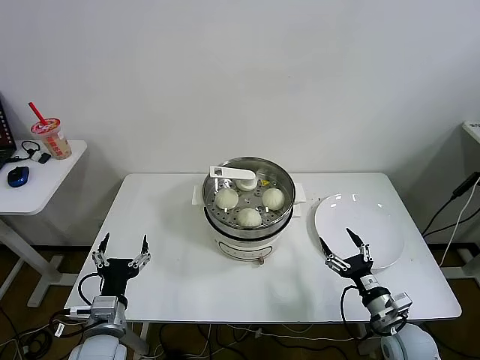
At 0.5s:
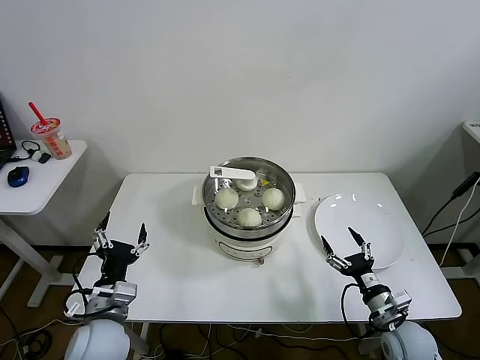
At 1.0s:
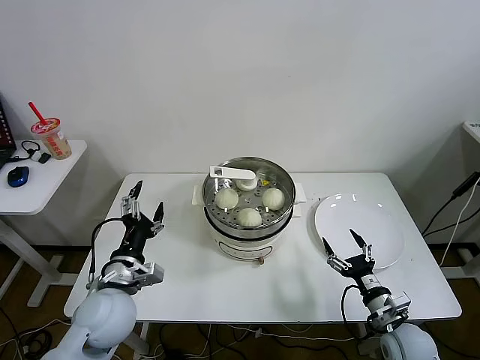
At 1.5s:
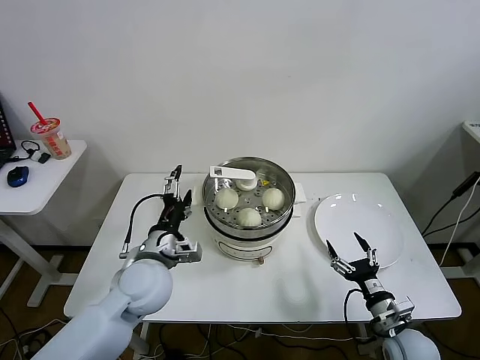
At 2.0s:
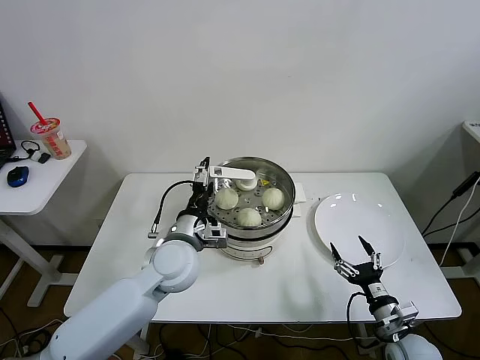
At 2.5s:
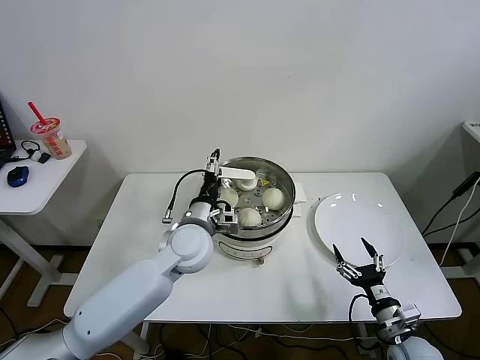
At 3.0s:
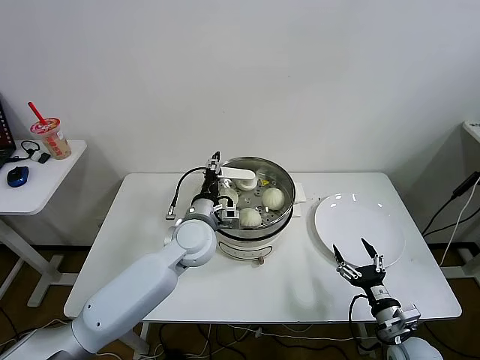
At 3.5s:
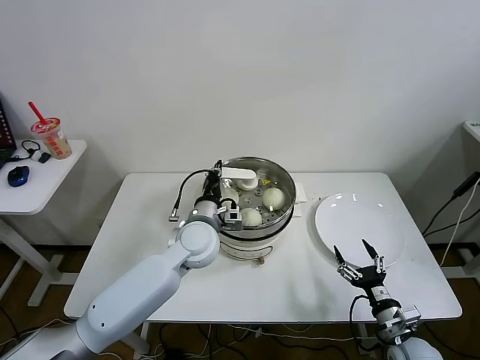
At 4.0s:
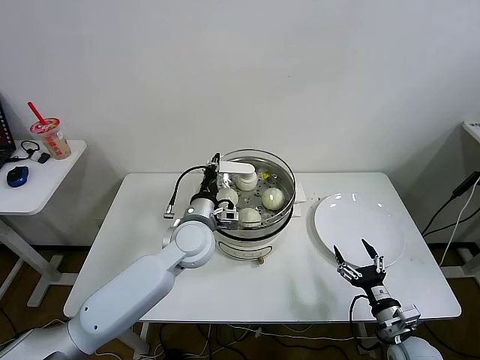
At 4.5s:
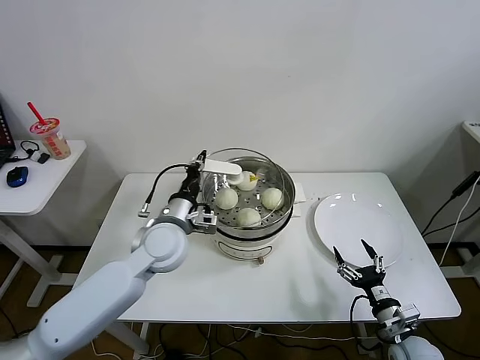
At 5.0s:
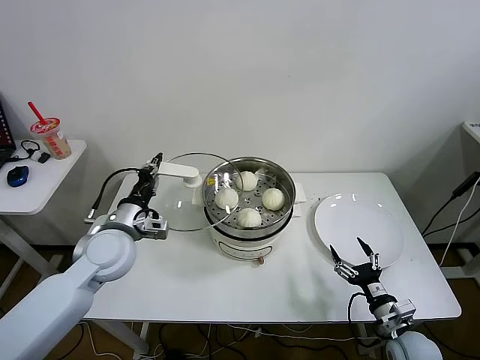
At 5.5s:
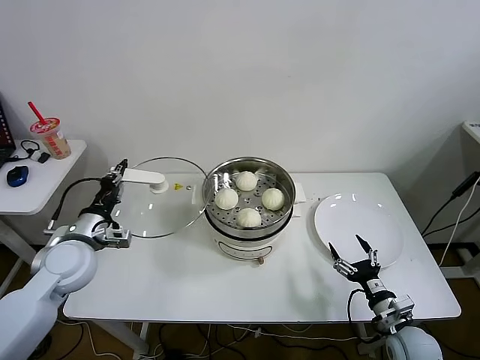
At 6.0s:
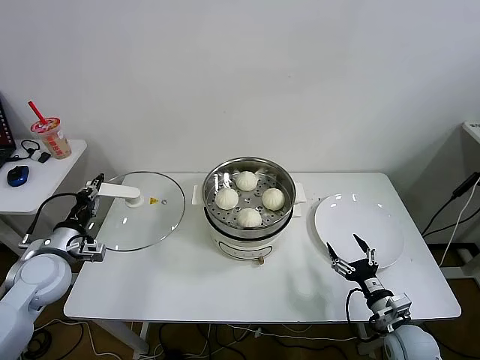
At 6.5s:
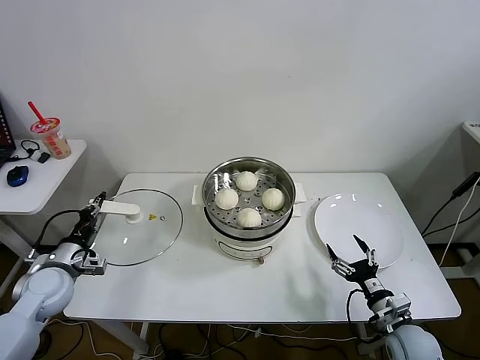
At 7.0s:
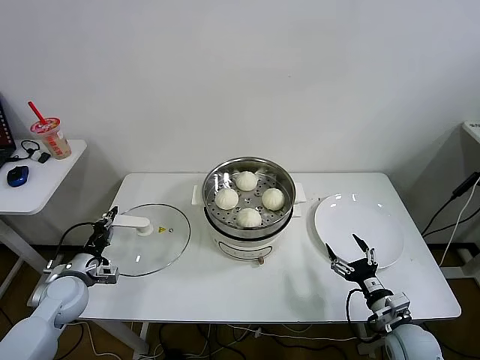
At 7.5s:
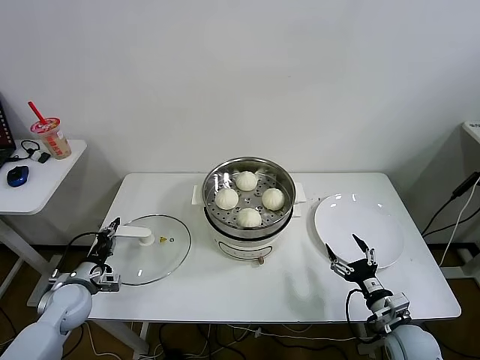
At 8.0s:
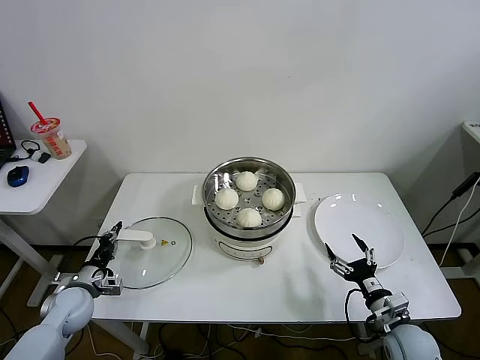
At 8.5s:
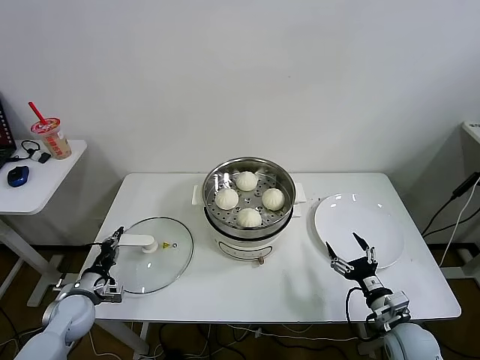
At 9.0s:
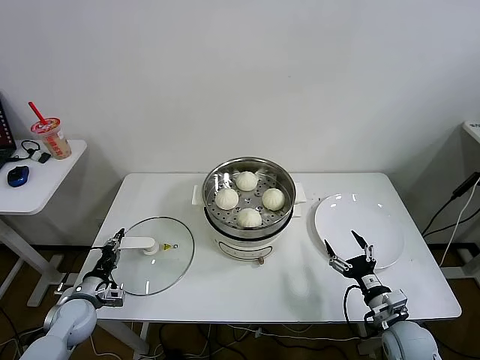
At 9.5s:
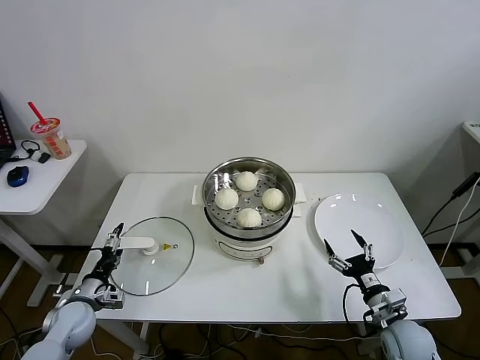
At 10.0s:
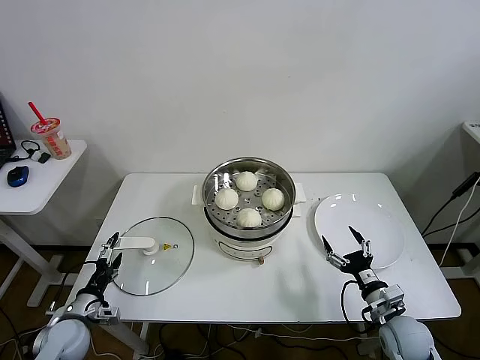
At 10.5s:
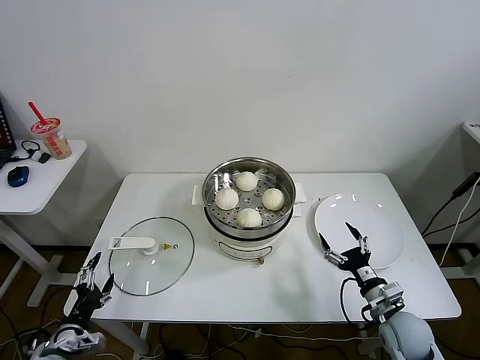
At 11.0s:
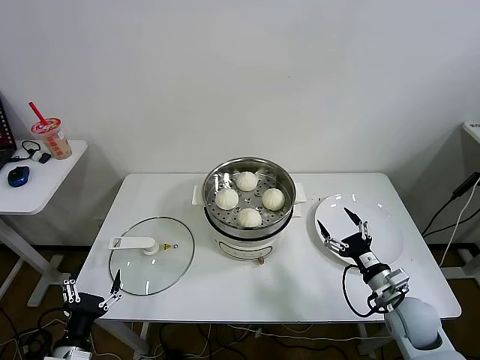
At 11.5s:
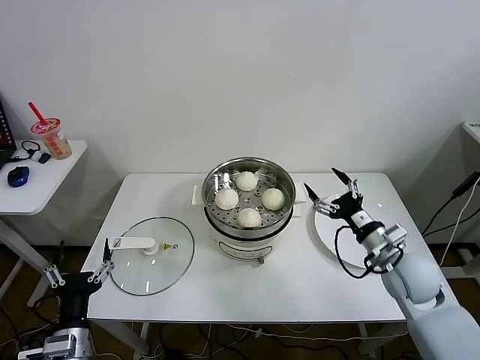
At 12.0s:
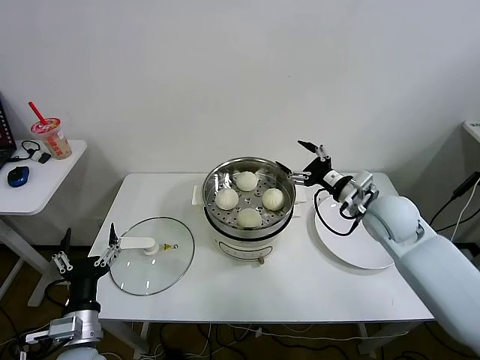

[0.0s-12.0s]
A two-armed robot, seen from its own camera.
Task of the whole recording: take steamed baozi put them in steamer then cover it.
Step, 0.0s to 3.0s: Grasp the pot lid with left gripper.
Step, 3.5s to 9.0s: Place the pot lid on the table with left gripper.
2.0s to 4.0s: The left gripper moves roughly 5 cm, and closes up.
4.0s to 6.0s: The left gripper goes about 30 cm to the left.
6.0s to 8.0s: The left gripper travels downward by about 15 cm.
8.0s to 10.0s: The left gripper moves backward, about 5 cm, and opens up.
10.0s to 12.0s: The left gripper is displaced to the right, upward and backward by approximately 15 cm; the right gripper goes approximately 30 cm upward and forward.

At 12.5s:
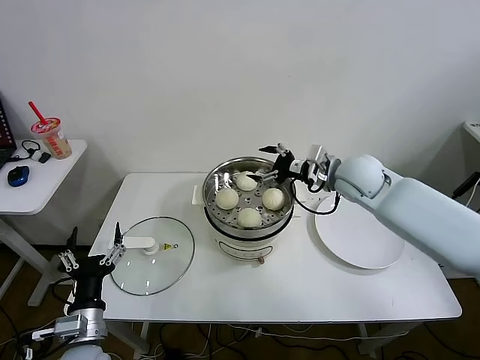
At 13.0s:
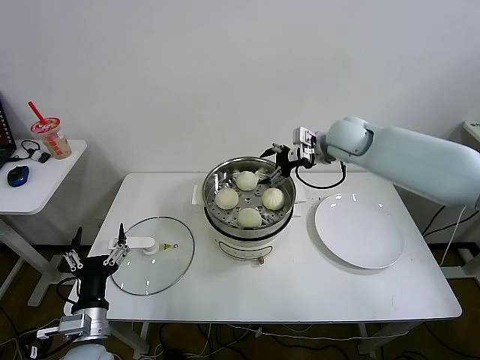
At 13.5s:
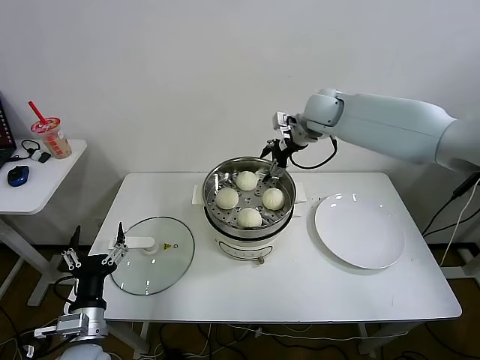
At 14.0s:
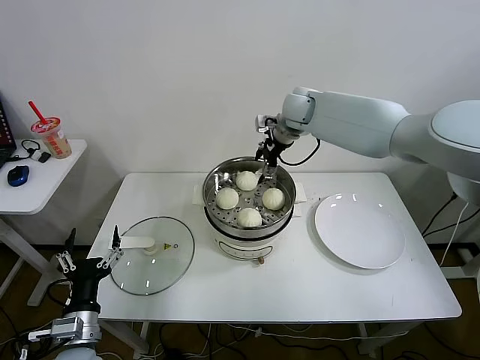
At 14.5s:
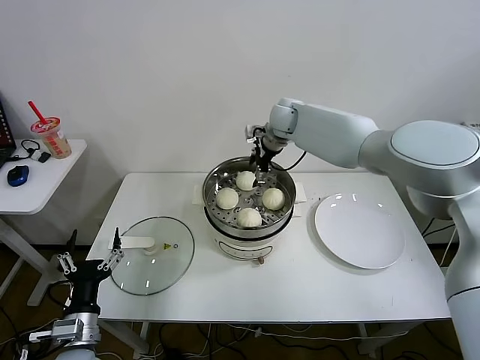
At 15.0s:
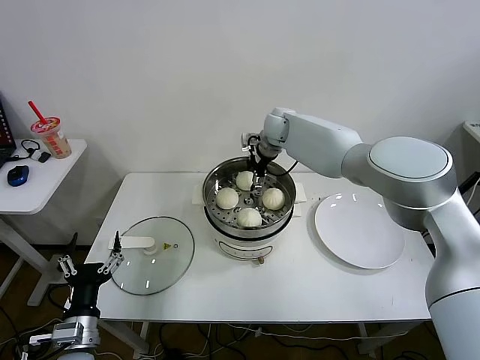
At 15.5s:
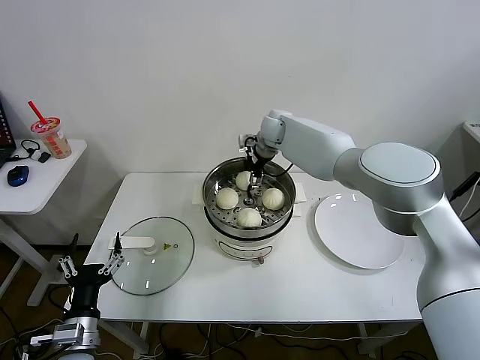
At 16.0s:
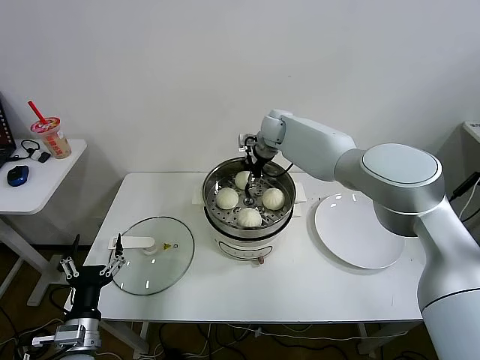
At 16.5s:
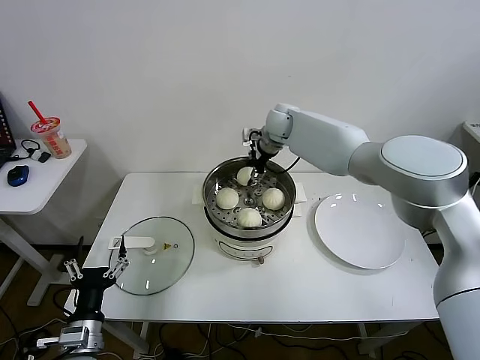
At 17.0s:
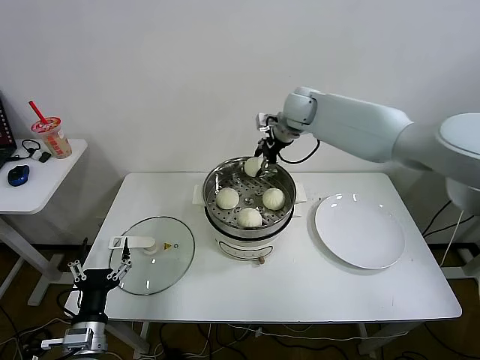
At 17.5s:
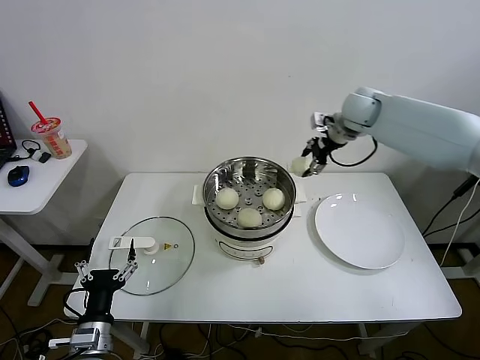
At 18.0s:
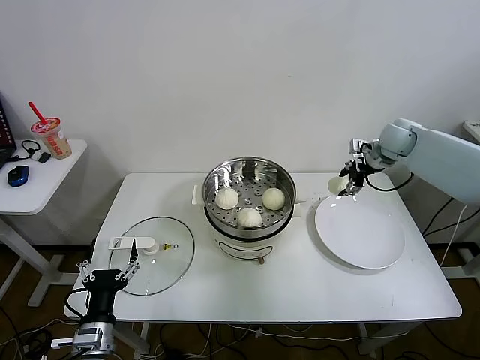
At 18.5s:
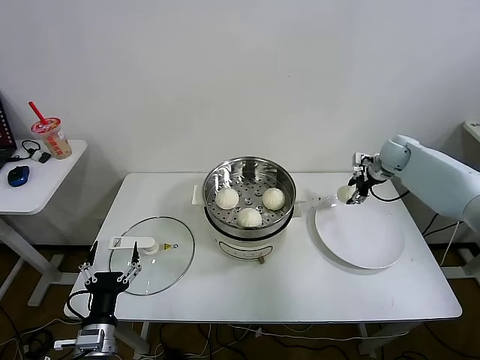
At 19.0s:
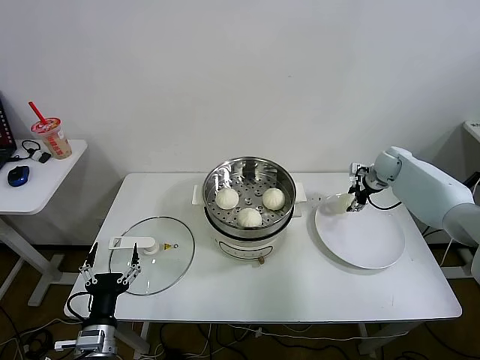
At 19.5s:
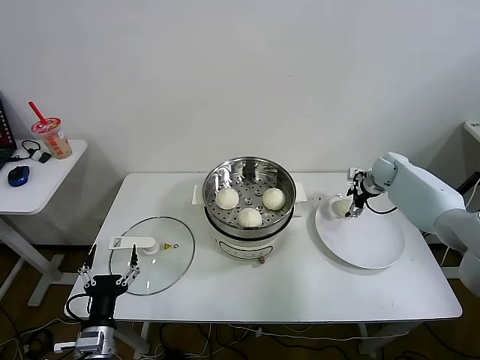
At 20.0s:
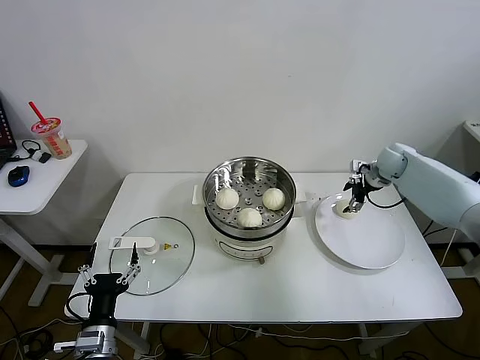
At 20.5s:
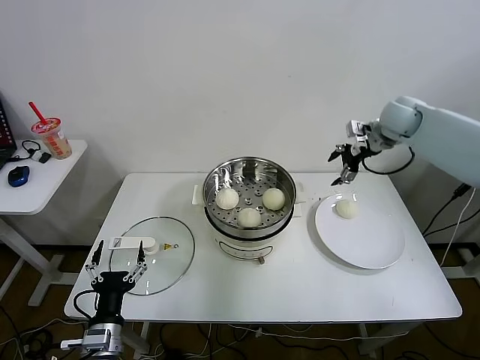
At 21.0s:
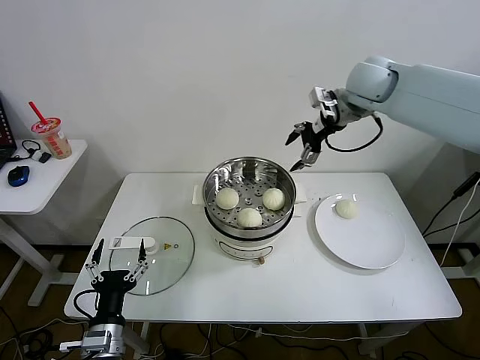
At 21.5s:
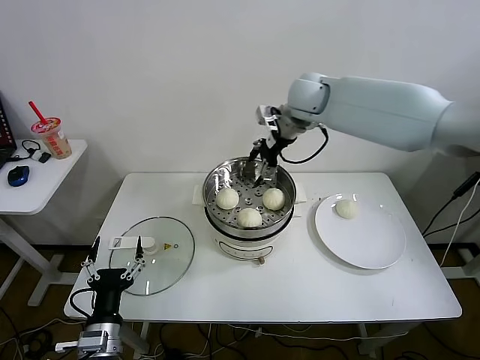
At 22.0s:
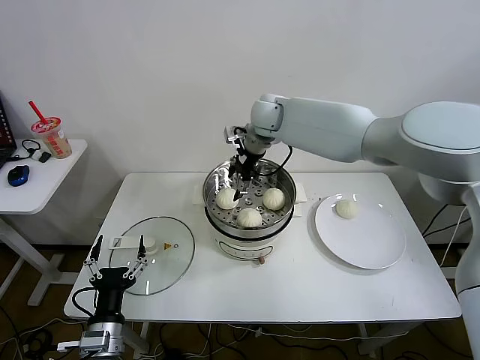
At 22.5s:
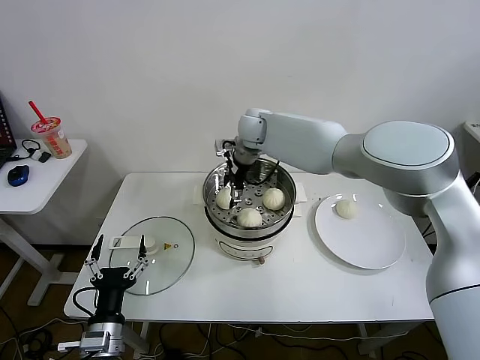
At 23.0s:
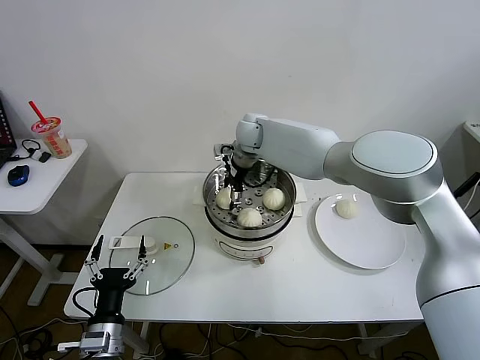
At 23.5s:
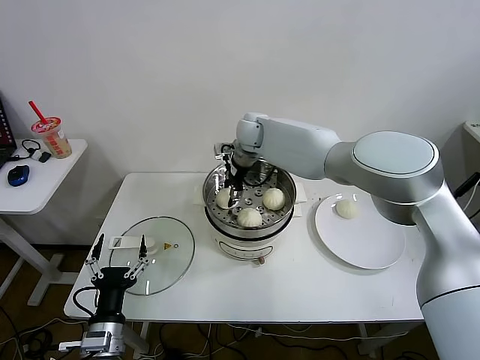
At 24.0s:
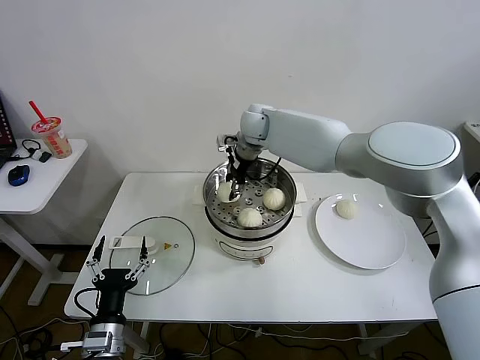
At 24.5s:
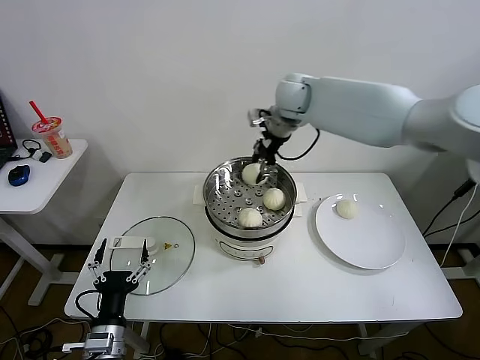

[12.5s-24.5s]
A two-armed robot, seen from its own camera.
Task of the whole recording: take steamed baozi put them in steamer then cover it.
Step, 12.5s to 16.0s: Grasp the baozi with right gripper.
Step, 16.5s to 19.5s: Place the baozi on the plate with right gripper.
Step, 20.0s to 23.5s: Grasp the baozi with right gripper.
12.5s to 14.5s: The right gripper is displaced forward and to the left by approximately 20 cm.
14.5s to 16.5s: The right gripper closes up.
16.5s to 18.5s: The right gripper heads to the right, covering roughly 30 cm.
18.5s to 20.5s: The right gripper goes about 15 cm upward and to the left, and opens up.
20.5s to 22.5s: The right gripper heads to the left, covering about 30 cm.
22.5s to 24.5s: The right gripper moves to the right and upward, about 15 cm, and closes up.

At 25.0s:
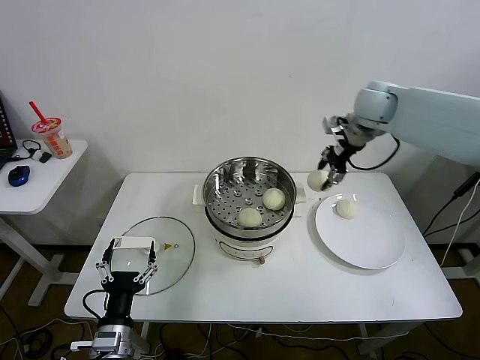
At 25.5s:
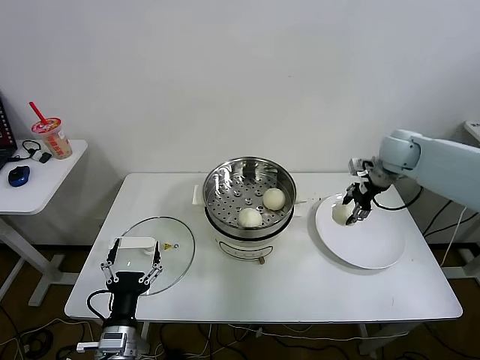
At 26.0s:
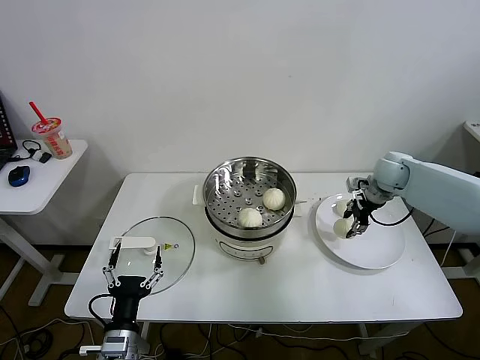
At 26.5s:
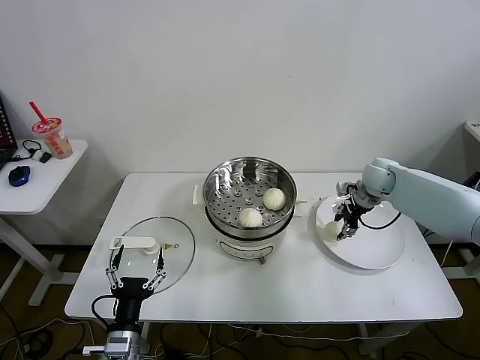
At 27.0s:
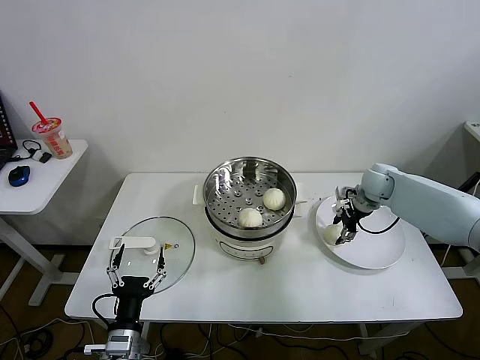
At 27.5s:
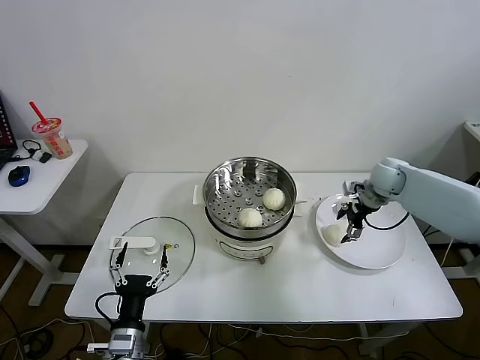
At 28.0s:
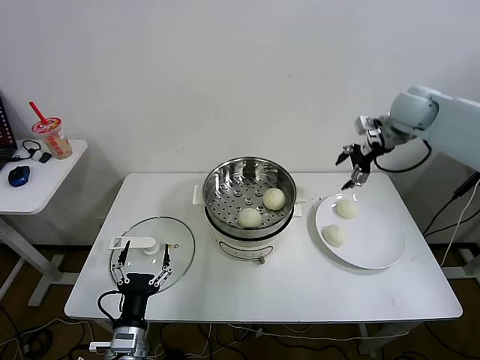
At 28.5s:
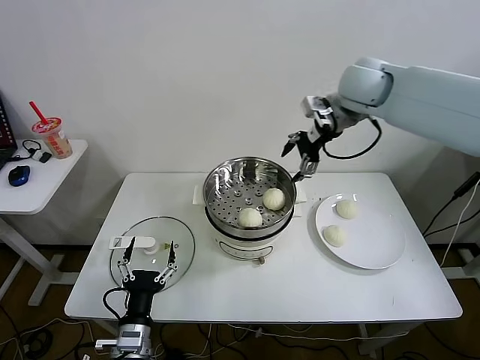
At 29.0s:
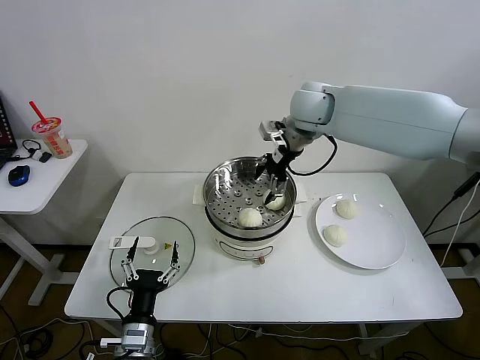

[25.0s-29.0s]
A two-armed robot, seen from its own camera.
Task of the whole recording: take steamed baozi put them in steamer then cover it.
Step, 25.0s to 27.0s: Place the baozi on the plate with right gripper.
25.0s to 27.0s: The right gripper heads downward, covering approximately 20 cm, and opens up.
27.0s to 29.0s: The right gripper is displaced to the left and upward by roughly 30 cm, and opens.
